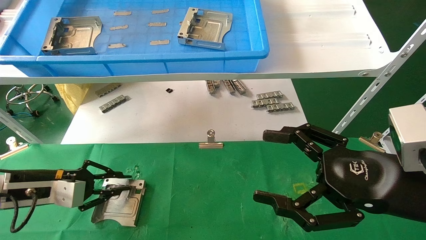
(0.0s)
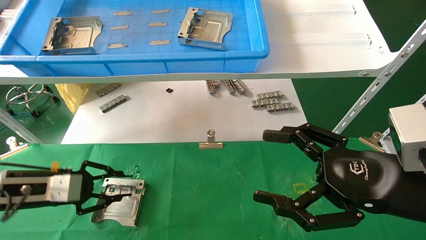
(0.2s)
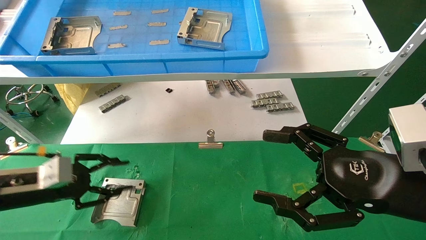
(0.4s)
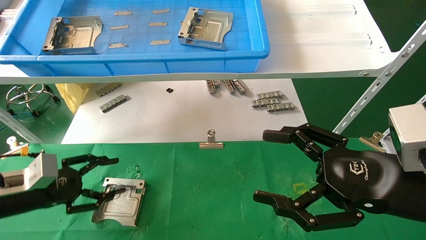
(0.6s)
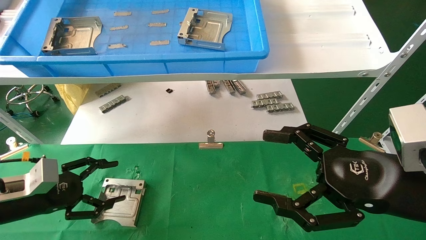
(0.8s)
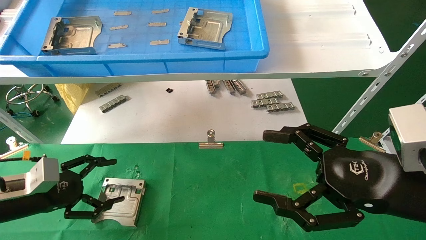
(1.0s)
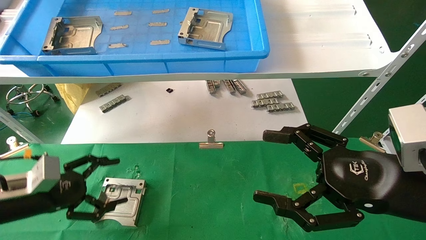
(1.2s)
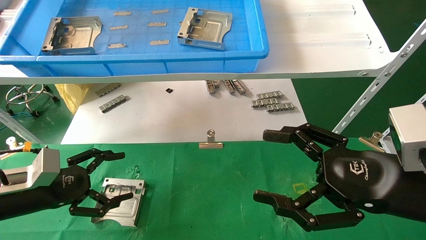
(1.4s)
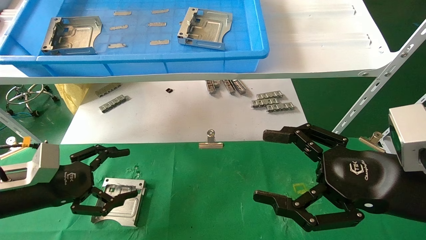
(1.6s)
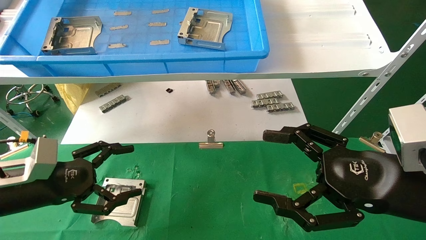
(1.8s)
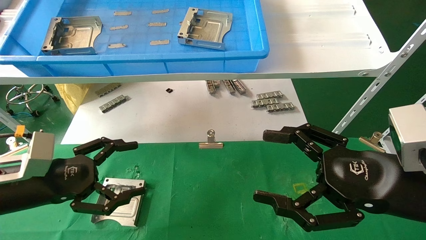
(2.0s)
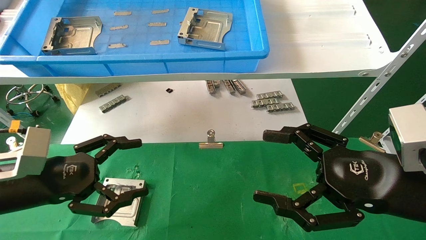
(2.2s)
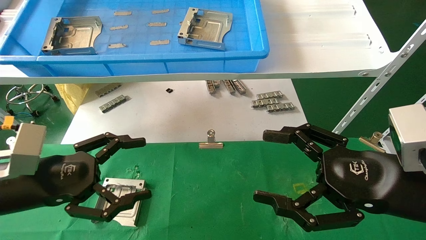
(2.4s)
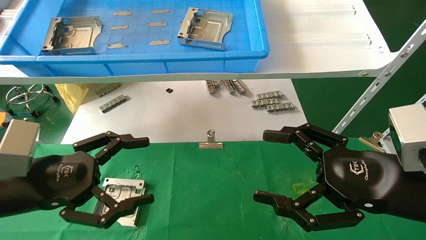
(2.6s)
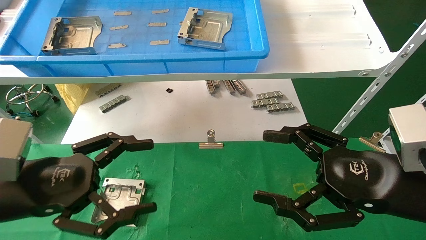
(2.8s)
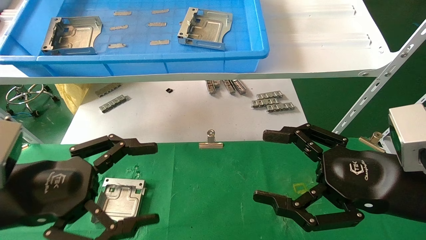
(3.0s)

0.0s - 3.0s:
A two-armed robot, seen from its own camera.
Task of the whole recording: use the mechanical arm to pick up the parts and place them on the table.
0.0s - 1.6s: The left gripper ends up approximately 5 cm from where it was, and opens up.
1.6s - 3.0s: The left gripper travels backward, to the right and upward by some 15 cm.

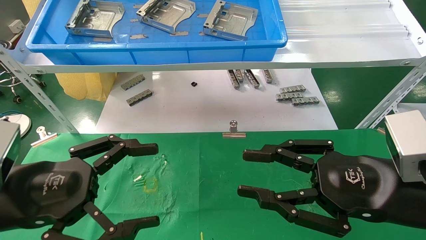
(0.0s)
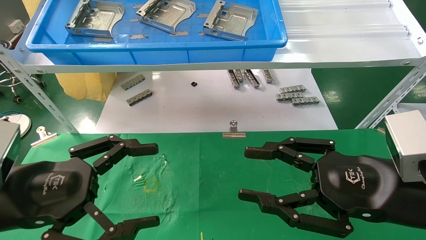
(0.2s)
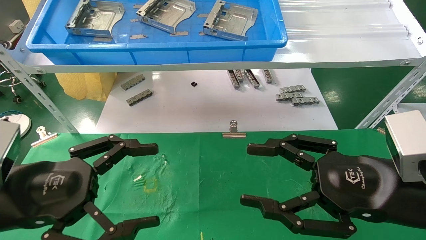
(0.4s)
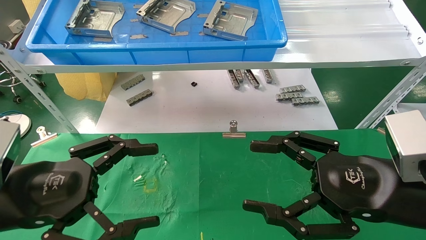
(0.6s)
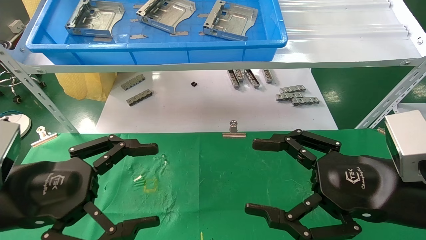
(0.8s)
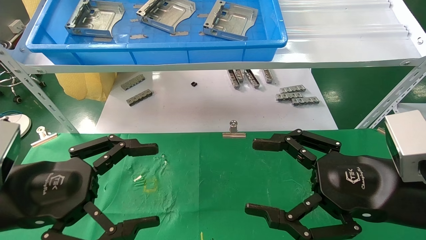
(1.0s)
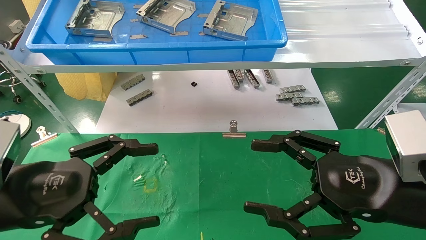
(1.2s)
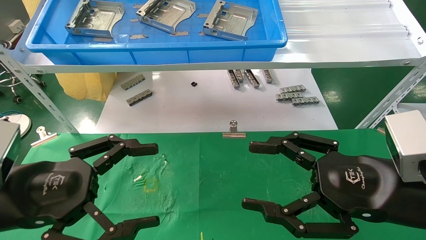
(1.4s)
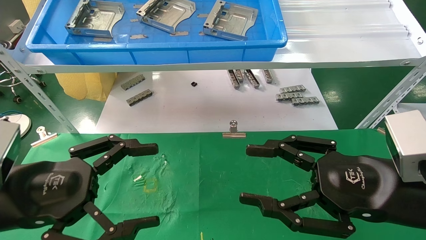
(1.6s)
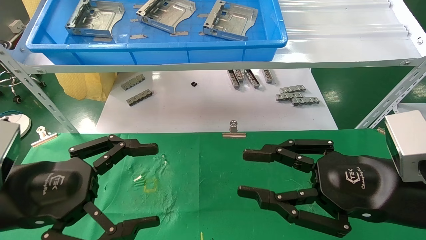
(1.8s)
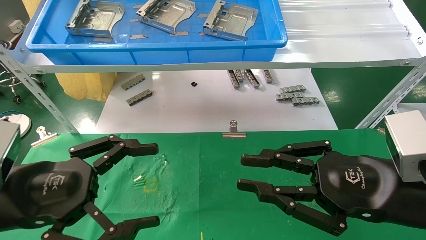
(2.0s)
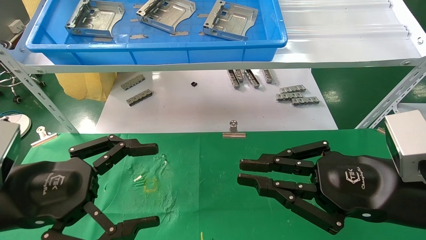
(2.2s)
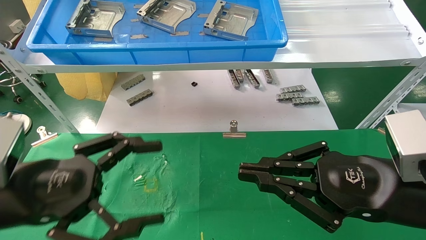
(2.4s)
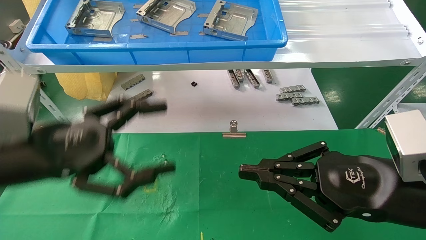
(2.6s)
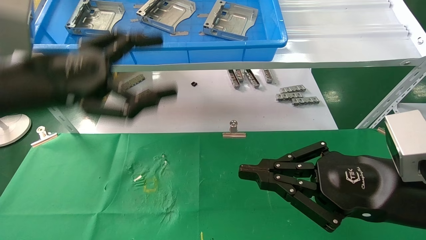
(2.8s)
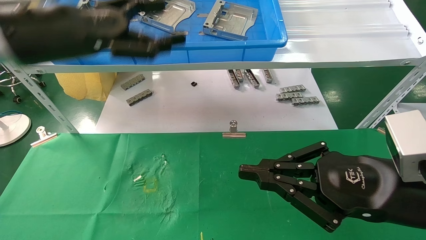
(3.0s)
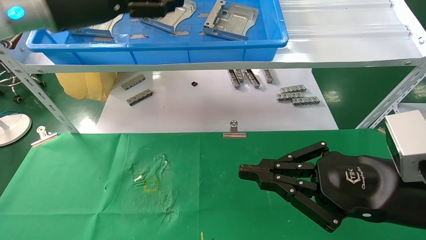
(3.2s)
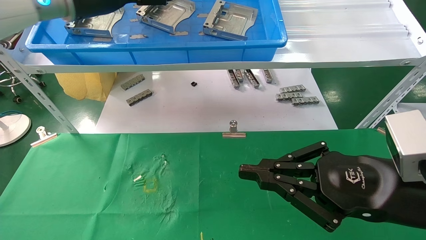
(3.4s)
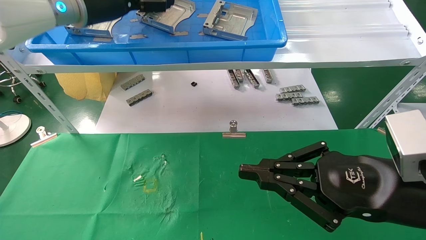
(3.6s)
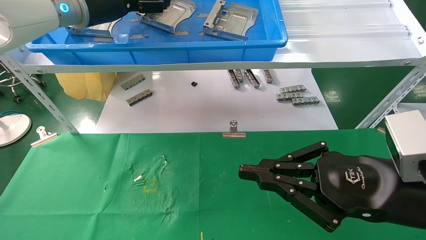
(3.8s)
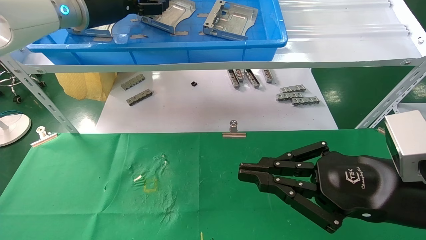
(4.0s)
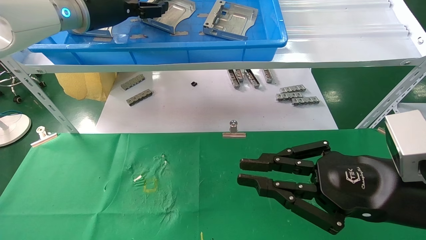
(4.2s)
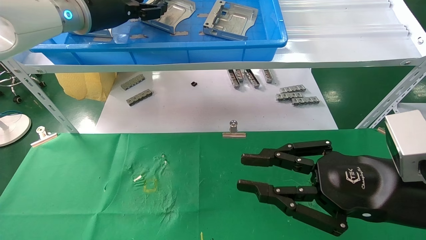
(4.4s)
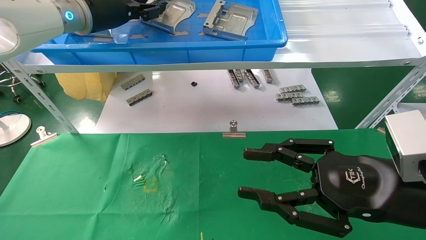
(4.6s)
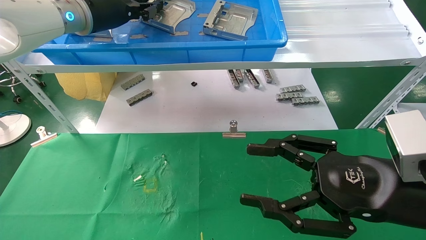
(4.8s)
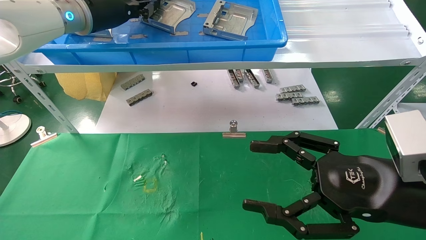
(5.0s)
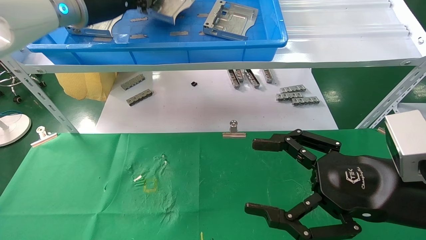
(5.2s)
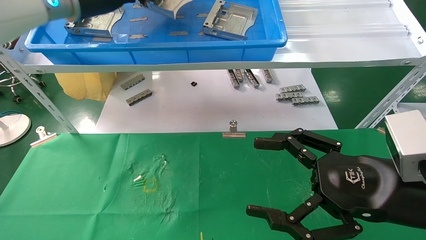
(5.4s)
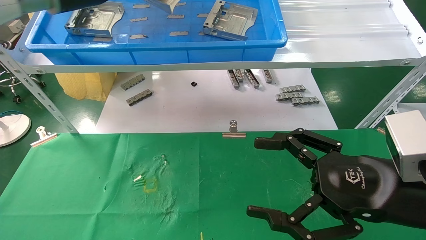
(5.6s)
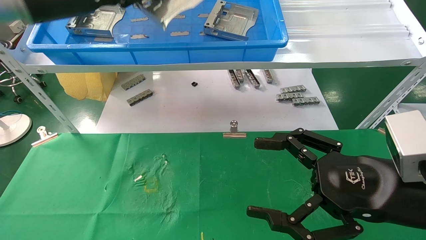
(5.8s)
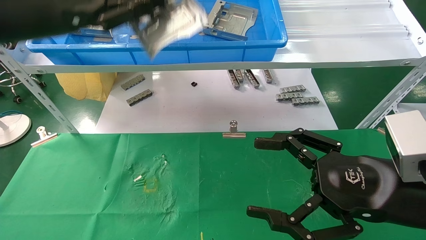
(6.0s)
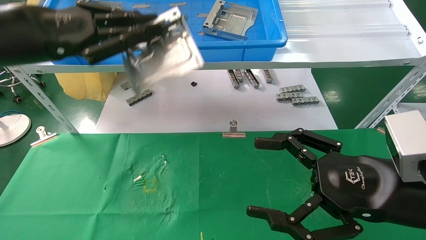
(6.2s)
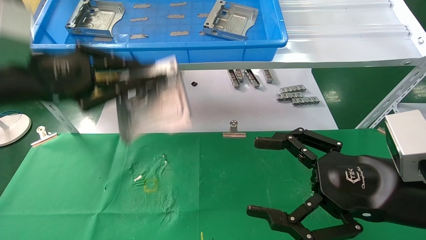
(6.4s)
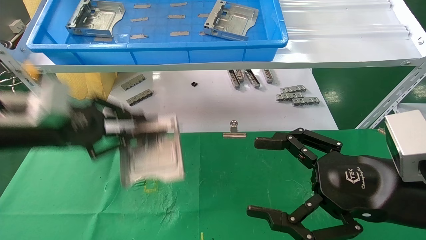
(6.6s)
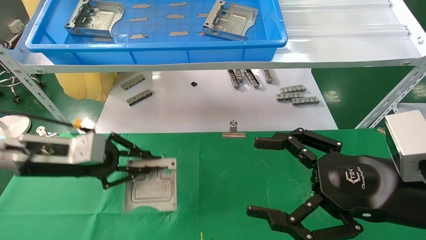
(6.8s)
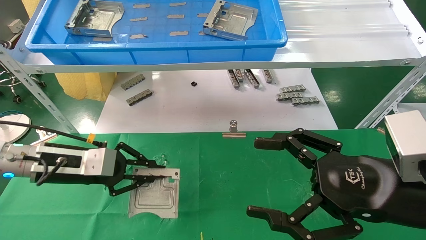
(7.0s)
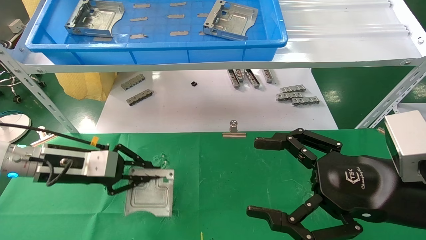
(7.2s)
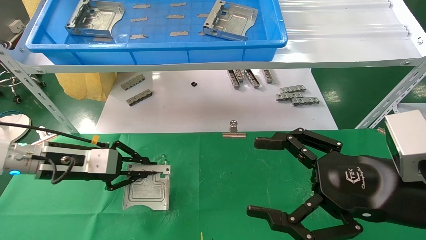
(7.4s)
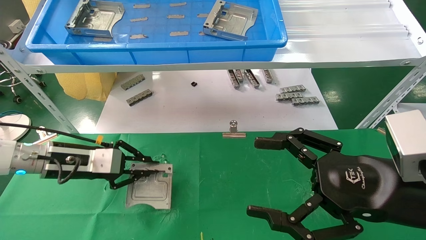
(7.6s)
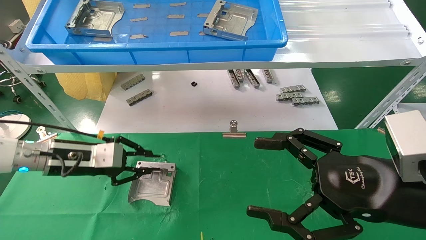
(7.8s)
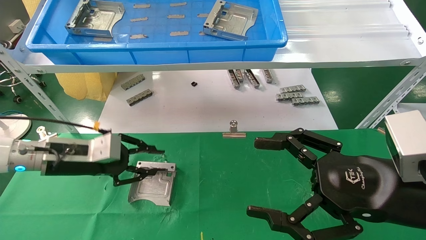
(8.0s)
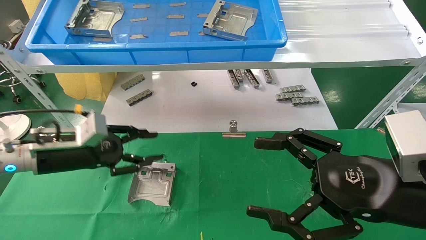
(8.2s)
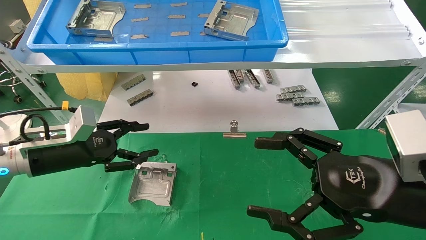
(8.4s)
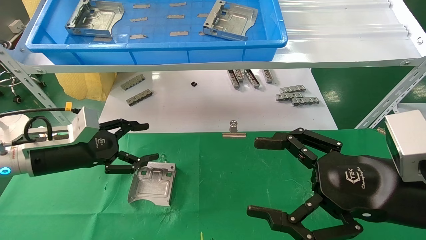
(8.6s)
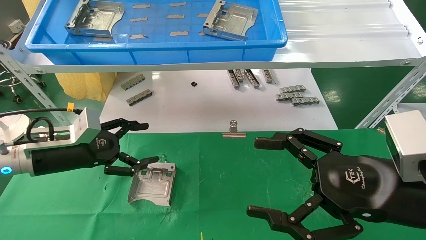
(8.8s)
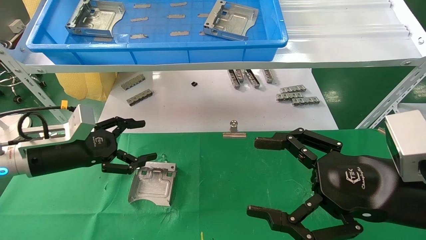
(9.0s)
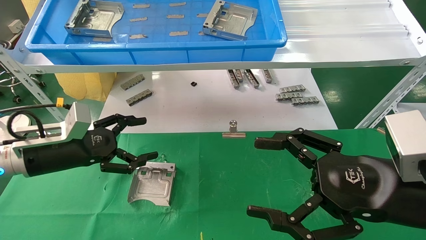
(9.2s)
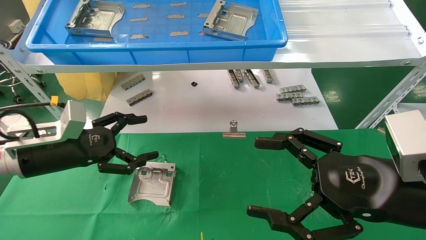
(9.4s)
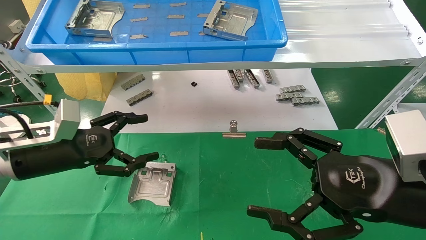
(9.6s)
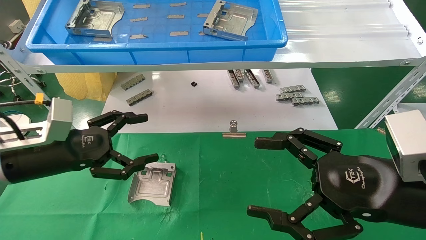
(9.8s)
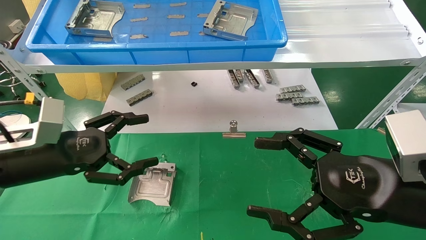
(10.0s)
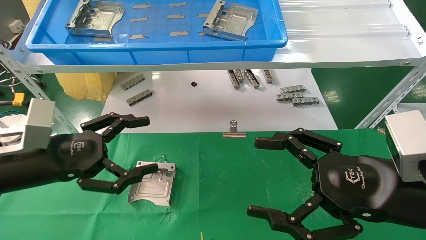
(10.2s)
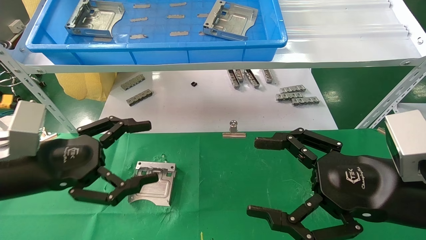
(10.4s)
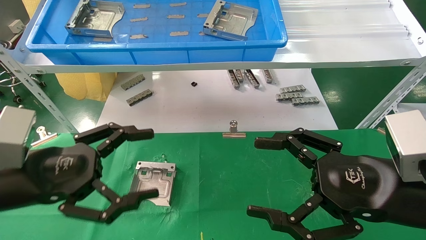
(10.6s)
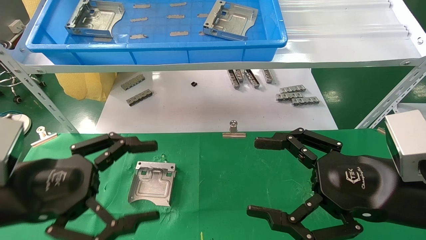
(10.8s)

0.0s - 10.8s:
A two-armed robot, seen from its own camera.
Task of the whole recording: use the mechanical arm to pick up the parts and place them on the table.
Step, 2.6s - 5.0s: Pick up the hard drive bracket from the feeding area.
Step, 5.2s - 8.2s: Place the hard drive bracket into the box.
0.0s - 1.6s: Both grippers stay about where they are.
1.6s - 3.0s: The left gripper is displaced upward and forward by some 20 cm. The right gripper closes up.
3.0s - 4.6s: The left gripper shifts some 10 cm forward, and closes. The right gripper opens up.
4.6s - 6.2s: The right gripper opens its fingers, while the left gripper shifts roughly 15 cm backward, to the left and downward, and closes its fingers.
6.2s - 7.8s: The left gripper travels downward by approximately 20 cm.
7.8s - 9.2s: The left gripper opens.
9.2s - 10.8s: The left gripper travels backward by about 15 cm.
